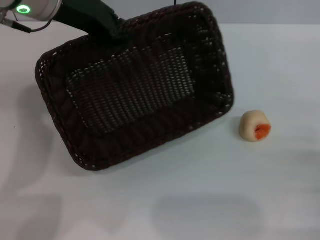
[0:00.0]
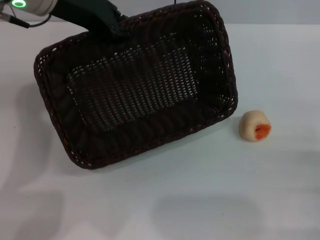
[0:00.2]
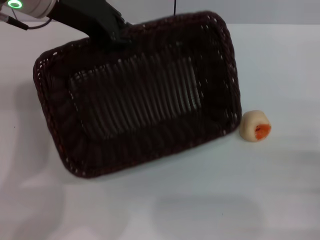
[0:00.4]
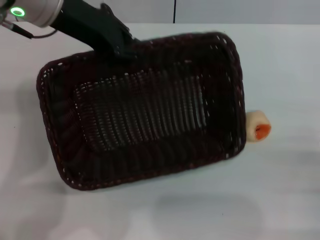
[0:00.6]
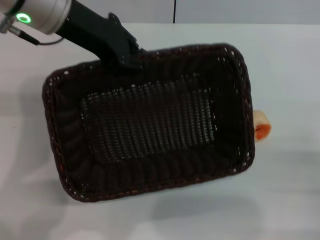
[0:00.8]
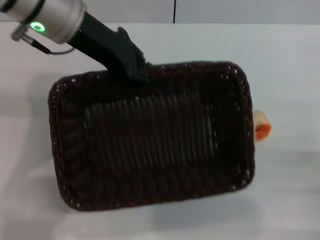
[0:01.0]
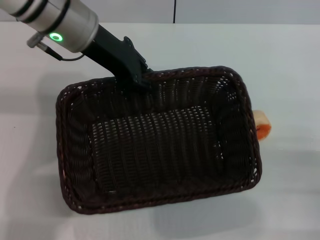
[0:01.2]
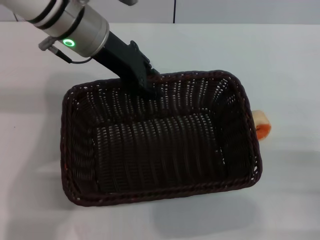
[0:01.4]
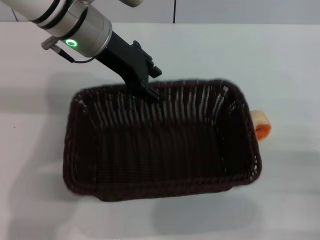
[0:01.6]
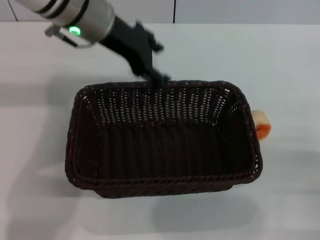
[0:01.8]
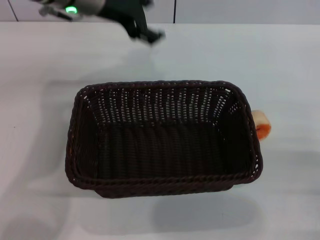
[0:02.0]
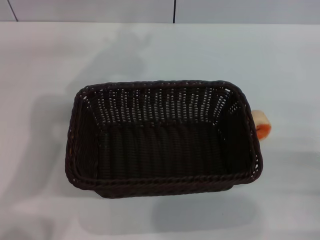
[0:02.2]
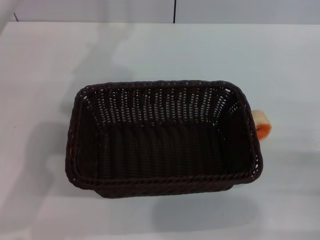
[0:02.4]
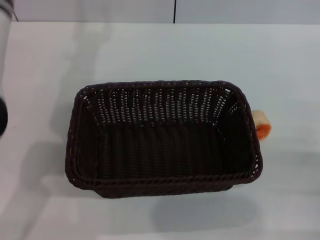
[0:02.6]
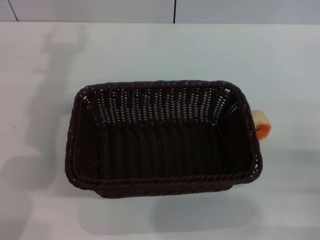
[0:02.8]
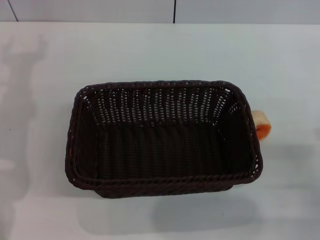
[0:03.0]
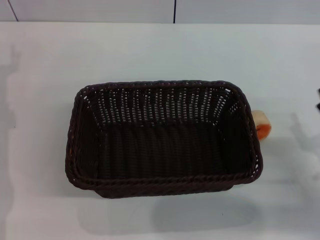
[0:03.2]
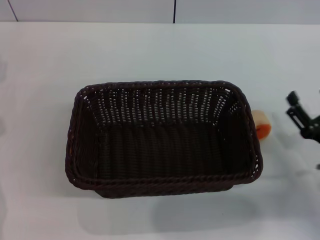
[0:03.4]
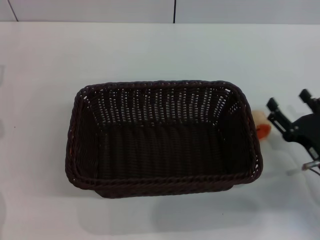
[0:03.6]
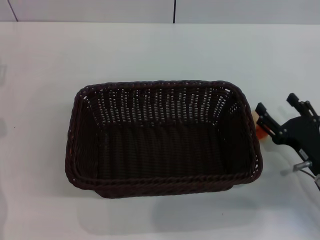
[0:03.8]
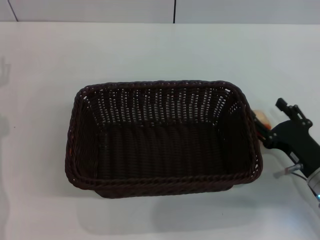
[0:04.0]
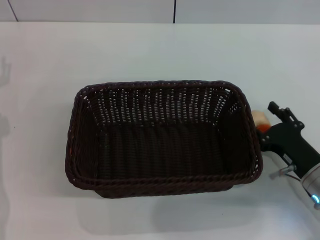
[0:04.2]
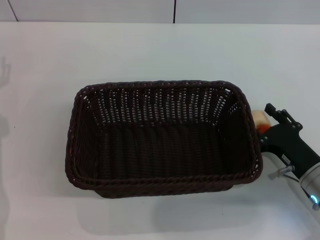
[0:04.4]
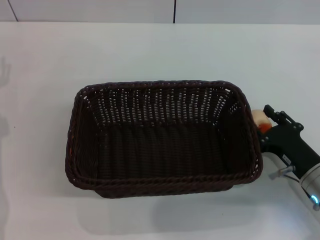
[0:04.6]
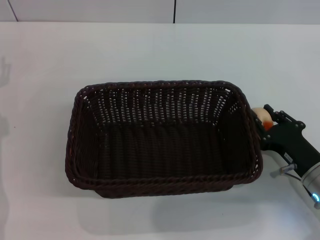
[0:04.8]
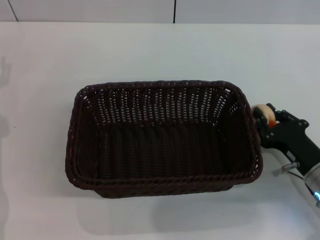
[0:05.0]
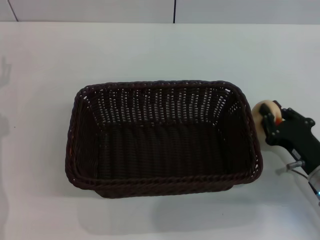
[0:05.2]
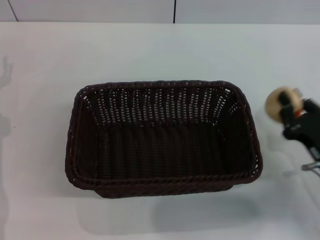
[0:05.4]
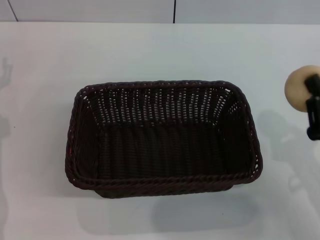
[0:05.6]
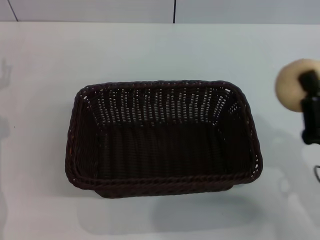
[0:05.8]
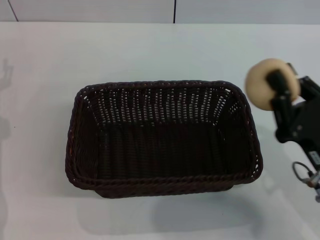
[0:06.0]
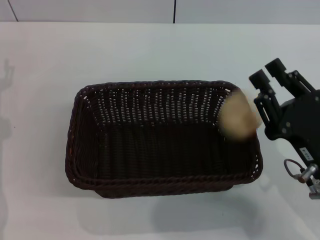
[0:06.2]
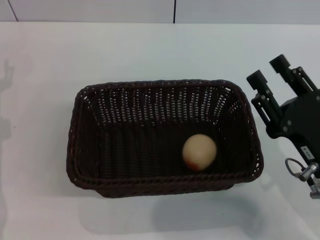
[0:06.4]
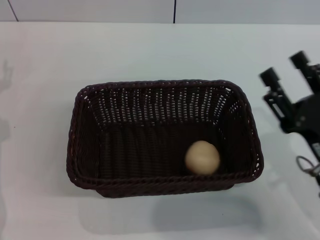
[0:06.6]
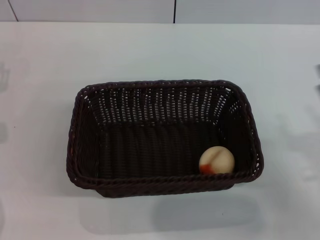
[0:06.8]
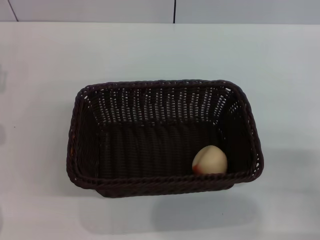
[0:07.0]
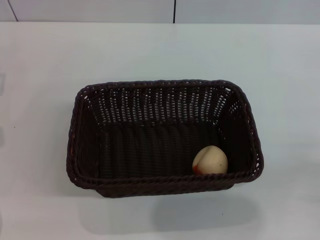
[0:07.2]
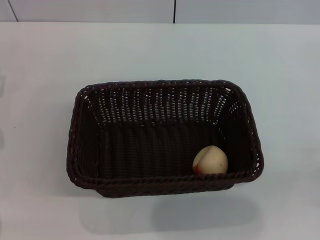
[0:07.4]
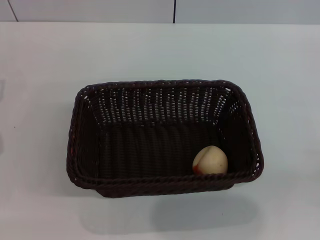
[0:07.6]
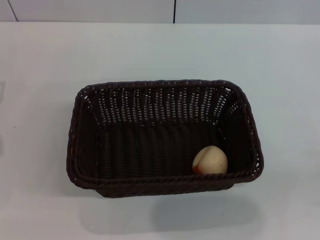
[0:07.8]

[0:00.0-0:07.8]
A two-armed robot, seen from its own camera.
Step, 0:02.0 to 0:05.2: Pick up the egg yolk pastry with the right gripper.
Step, 0:05.4 to 0:06.4: Place the egg yolk pastry into the basket with the right gripper.
0:00.0 to 0:01.6: The left gripper shifts approximately 5 cm downward.
0:01.6 to 0:03.2: The right gripper moves some 5 cm; the left gripper is displaced to the left and downward by roughly 20 cm, and opens up.
0:03.2 to 0:04.6: The right gripper moves roughly 5 cm.
0:04.6 to 0:06.2: The right gripper moves upward, some 5 cm, and closes.
0:06.2 to 0:07.8: The right gripper travels to the right and backward by approximately 15 cm, and opens its fingers.
